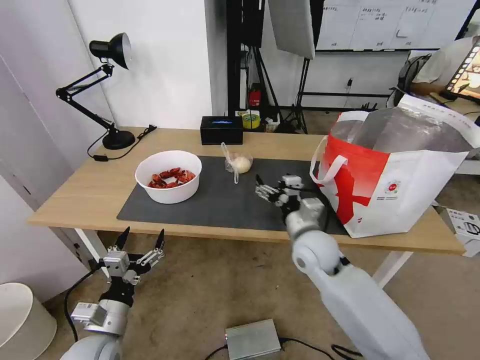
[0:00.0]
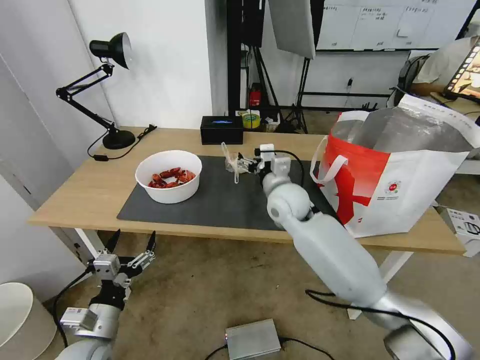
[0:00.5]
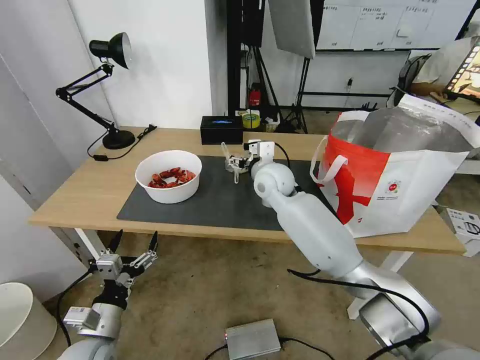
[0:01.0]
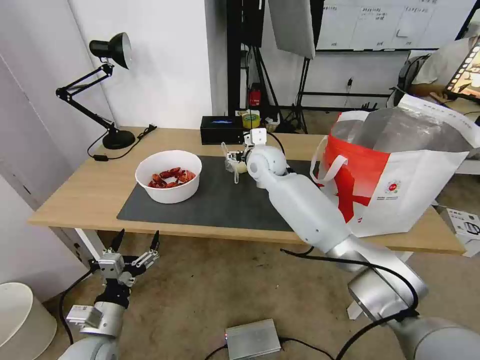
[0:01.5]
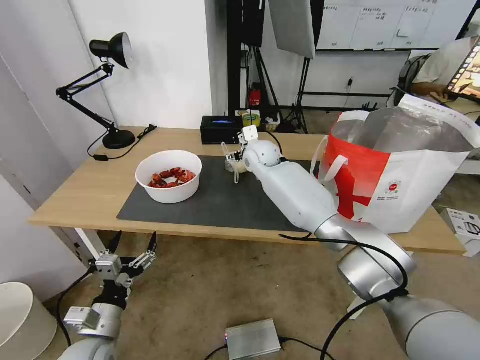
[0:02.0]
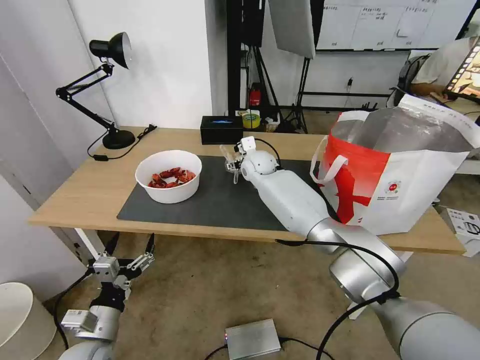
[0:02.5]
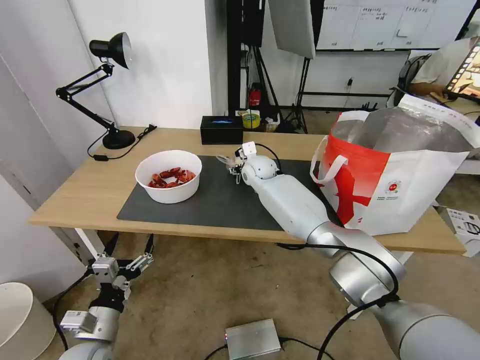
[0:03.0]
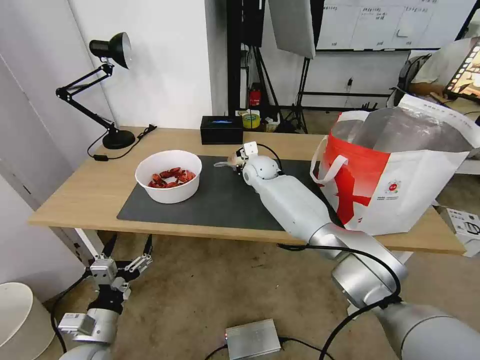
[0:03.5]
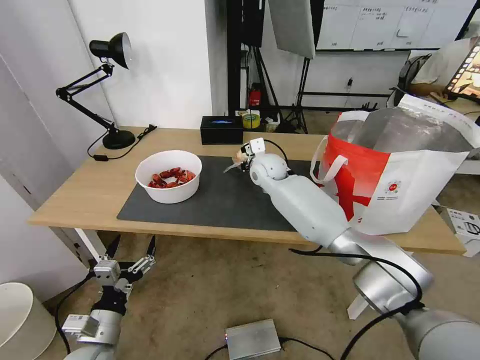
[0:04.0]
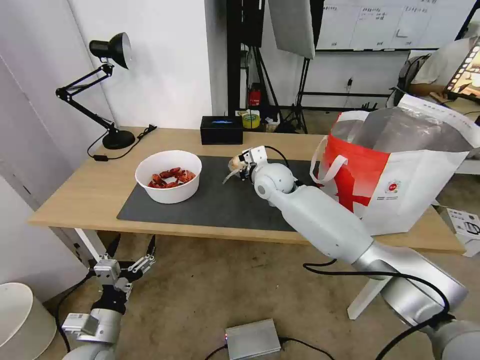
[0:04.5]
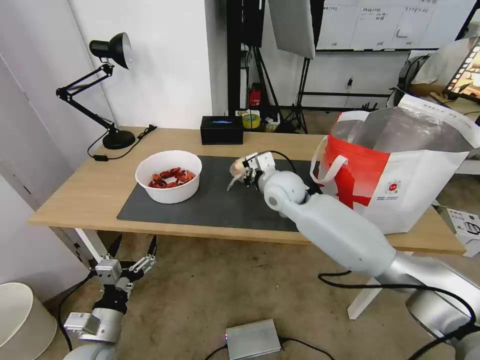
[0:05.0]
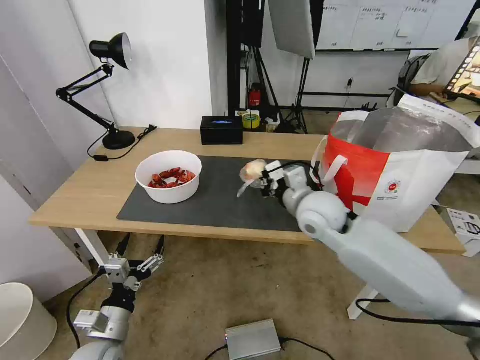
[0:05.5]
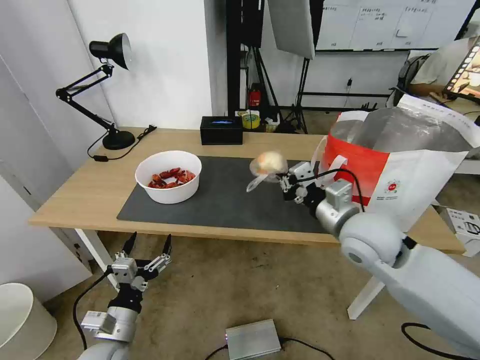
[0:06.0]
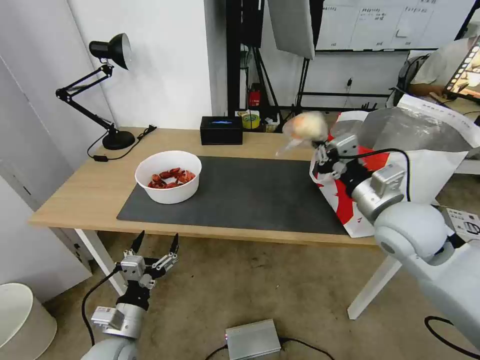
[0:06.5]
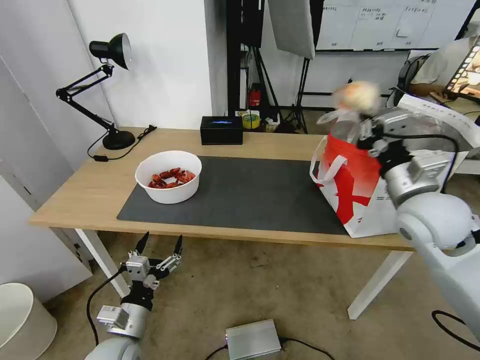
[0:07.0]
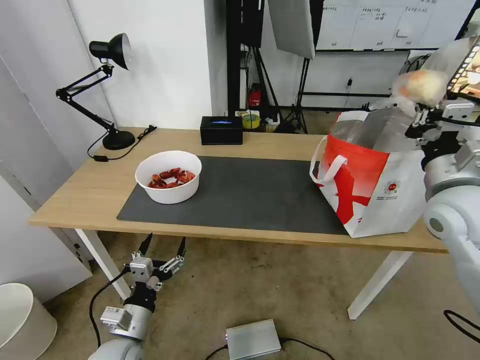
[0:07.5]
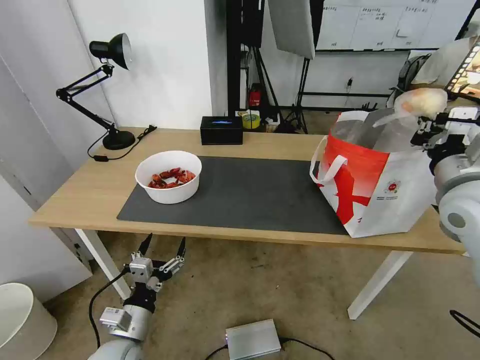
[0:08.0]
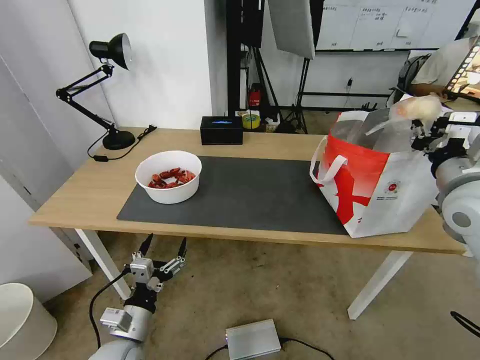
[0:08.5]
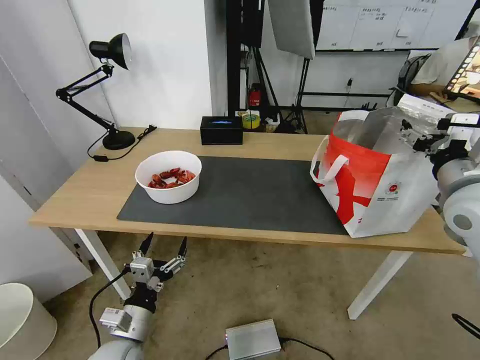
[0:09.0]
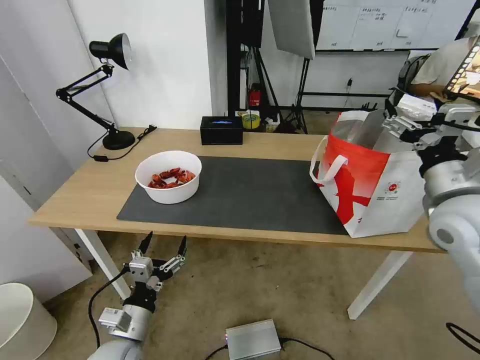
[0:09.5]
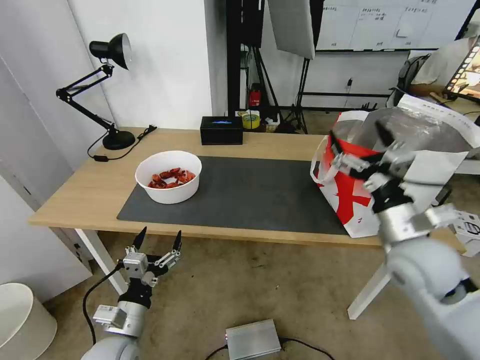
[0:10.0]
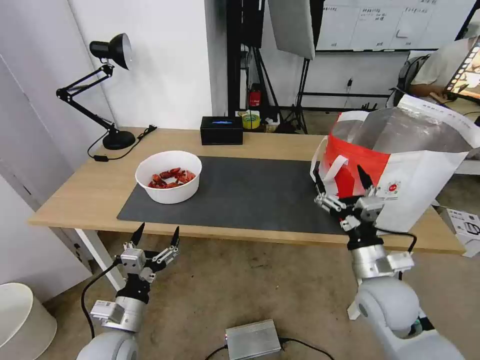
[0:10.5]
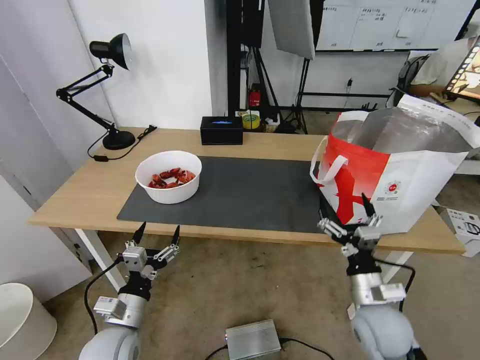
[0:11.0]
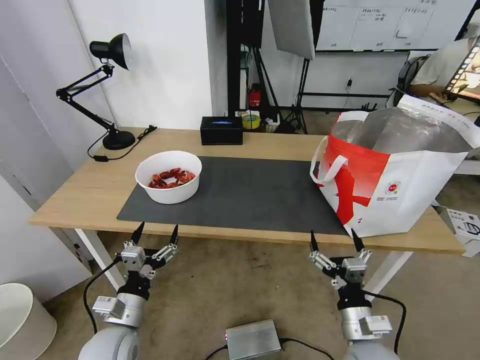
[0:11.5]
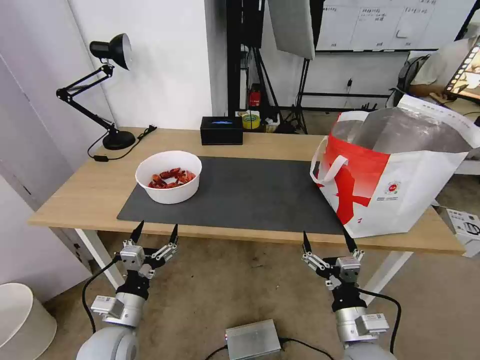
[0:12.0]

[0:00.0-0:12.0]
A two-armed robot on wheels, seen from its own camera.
Task of the whole recording: Pick up the trash from the table and place it into the takeout bag.
0:00.0 to 0:02.0: The right gripper travels forward and to the left by some 25 cm.
0:02.0 to 0:04.0: The right gripper closes up.
0:04.0 to 0:06.0: The right gripper moves backward and to the right, some 30 cm.
0:06.0 to 0:08.0: The right gripper shifts some 15 cm to the right and upward.
0:08.0 to 0:10.0: The right gripper heads downward and to the left, covering about 10 cm, and opens its fingers.
0:10.0 to 0:12.0: The right gripper travels downward, backward and to the left by some 25 cm.

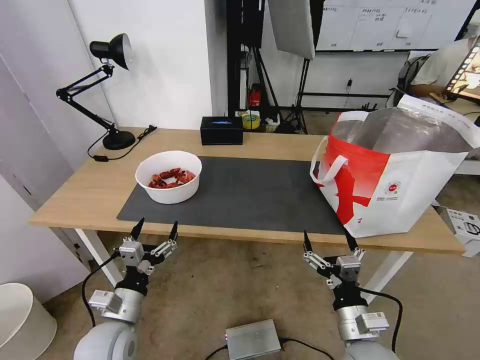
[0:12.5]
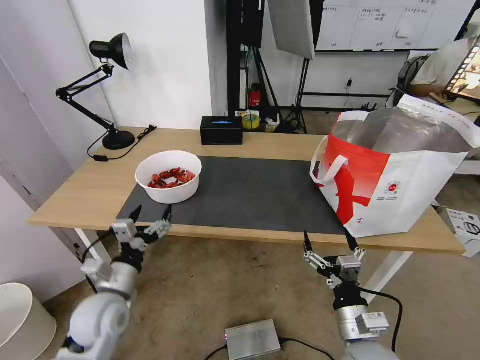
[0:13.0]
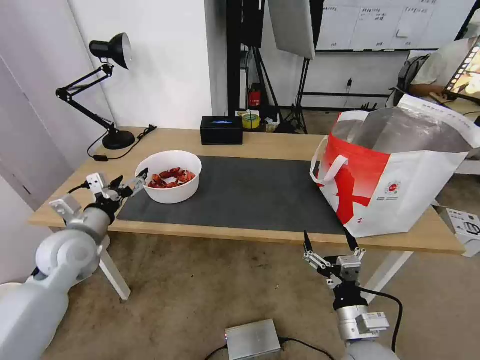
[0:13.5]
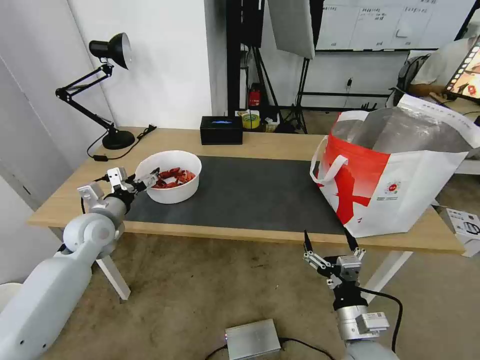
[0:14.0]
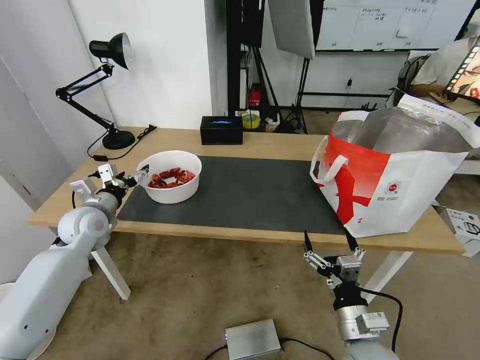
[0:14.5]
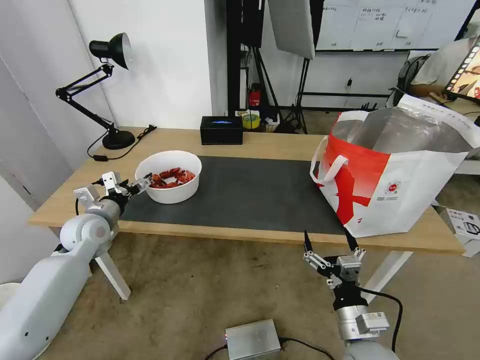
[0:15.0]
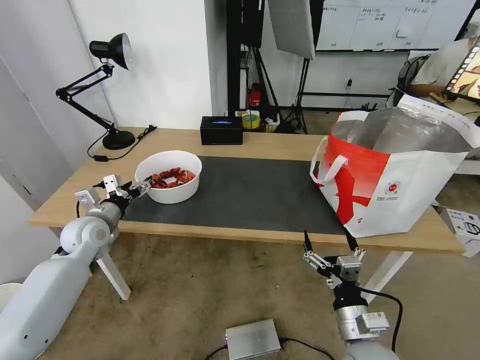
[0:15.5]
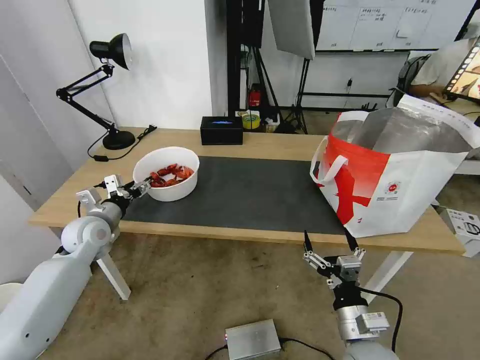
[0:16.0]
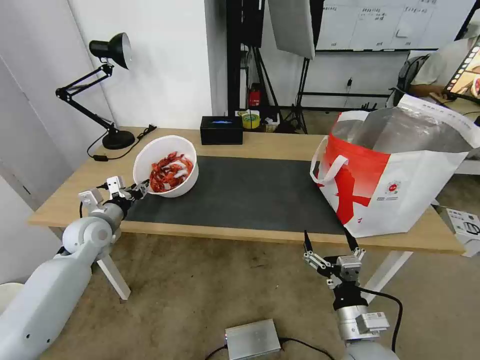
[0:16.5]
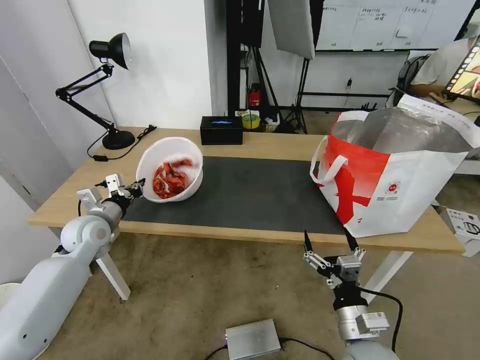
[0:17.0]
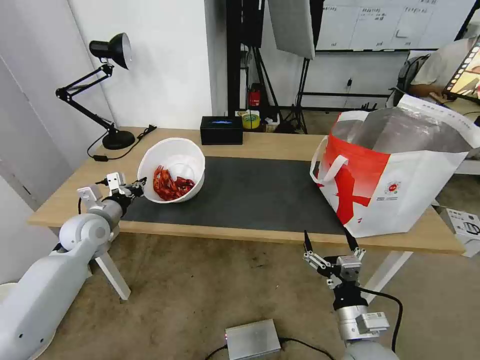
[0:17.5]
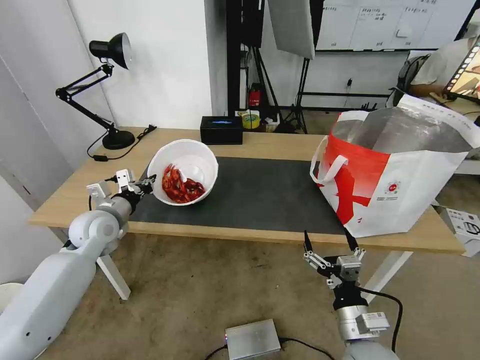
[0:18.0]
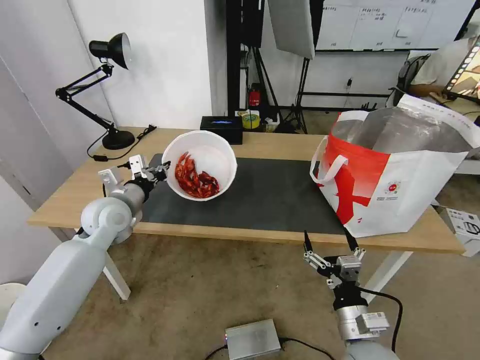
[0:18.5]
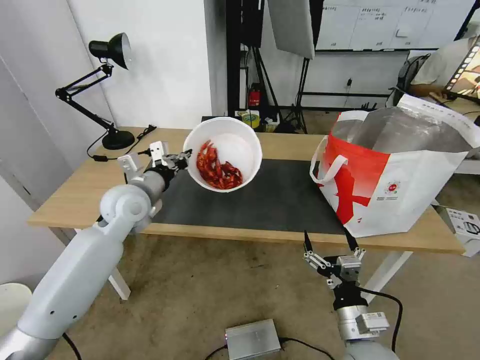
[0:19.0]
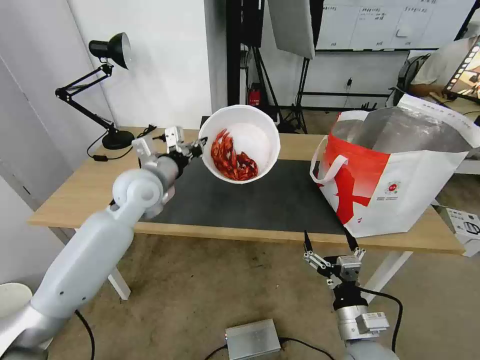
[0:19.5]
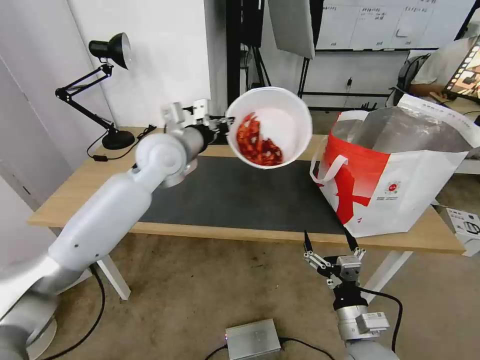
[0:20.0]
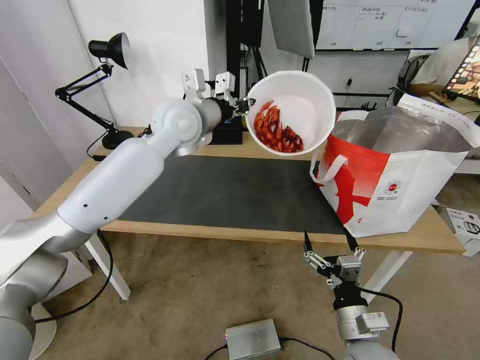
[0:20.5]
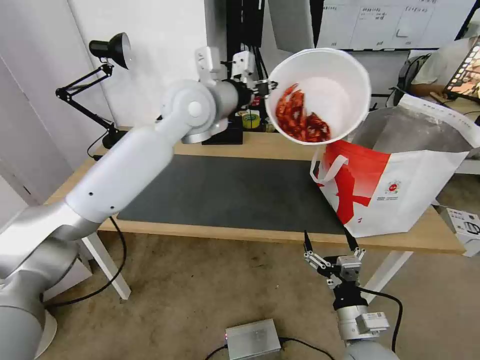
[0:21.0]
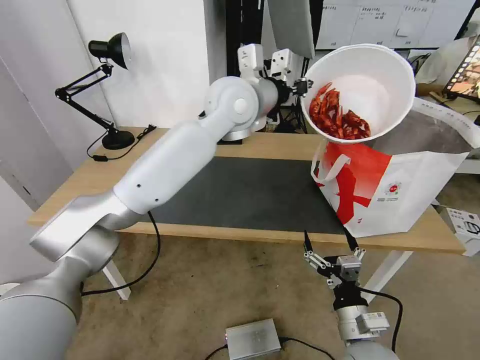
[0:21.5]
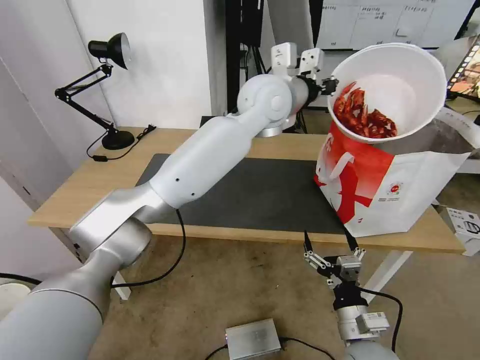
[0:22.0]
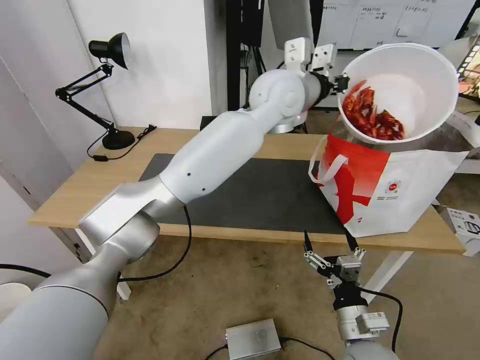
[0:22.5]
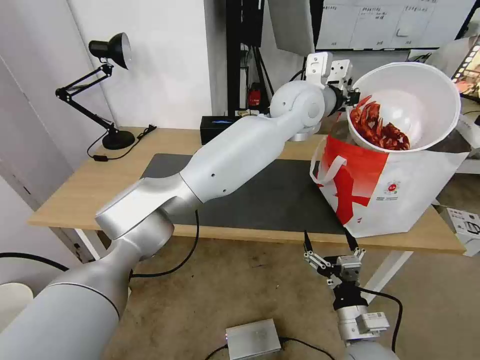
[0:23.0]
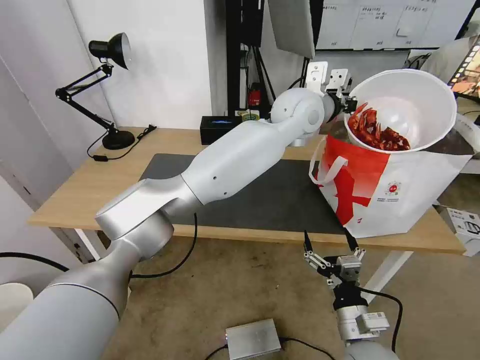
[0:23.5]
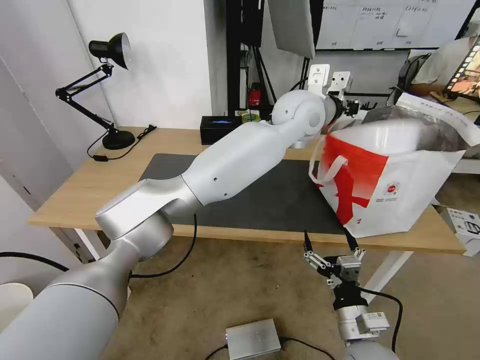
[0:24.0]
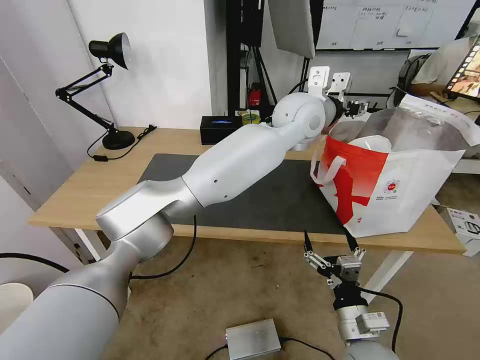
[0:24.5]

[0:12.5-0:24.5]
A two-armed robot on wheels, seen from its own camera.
Task of the whole recording: Pick up the trash from the table and place it into the takeout bag.
0:12.5 to 0:14.5: The left gripper travels forward, to the left and upward by some 25 cm.
0:14.5 to 0:16.5: The left gripper closes up.
0:16.5 to 0:18.5: The left gripper goes approximately 10 cm to the right and upward.
0:18.5 to 0:20.5: The left gripper travels upward, to the right and forward by roughly 25 cm.
0:20.5 to 0:22.5: The left gripper heads to the right, covering roughly 20 cm.
0:22.5 to 0:24.5: The left gripper shifts by approximately 5 cm, and opens up.

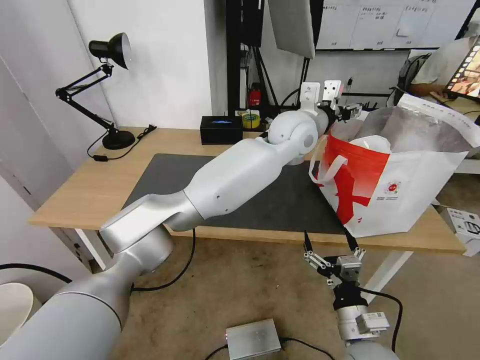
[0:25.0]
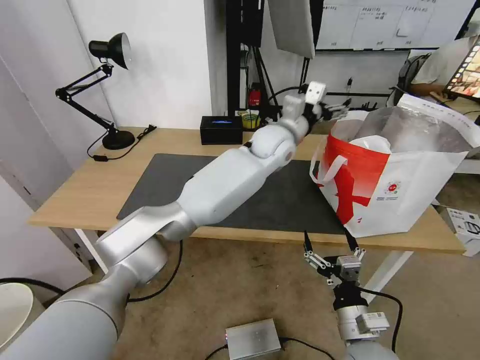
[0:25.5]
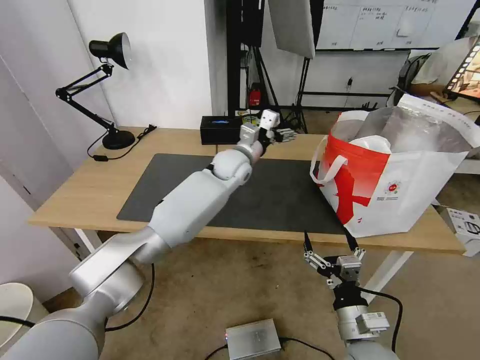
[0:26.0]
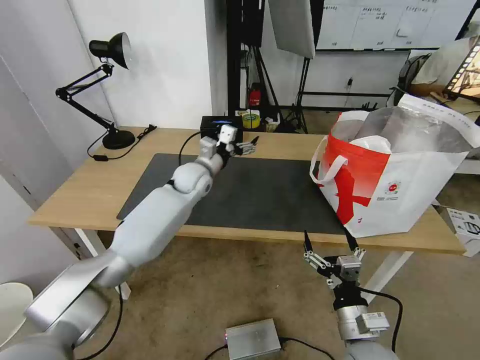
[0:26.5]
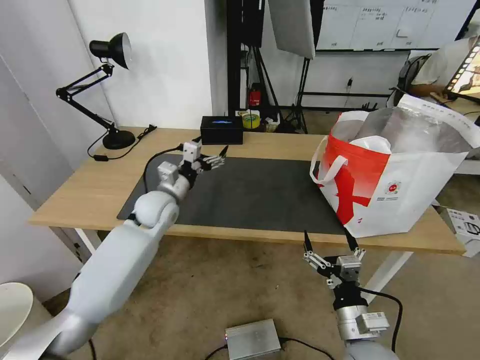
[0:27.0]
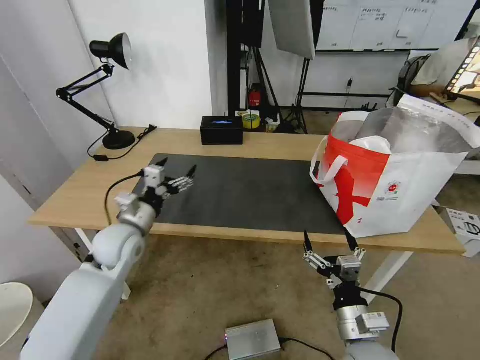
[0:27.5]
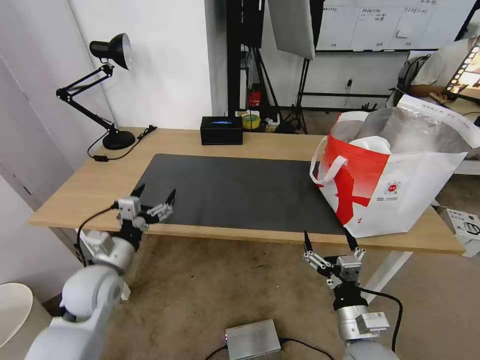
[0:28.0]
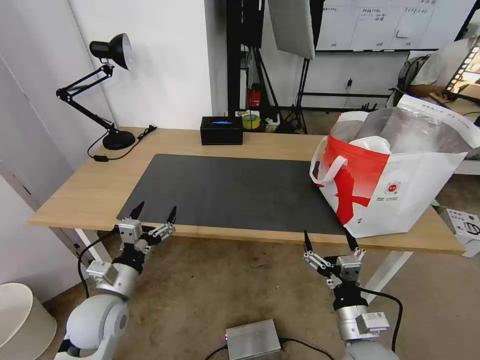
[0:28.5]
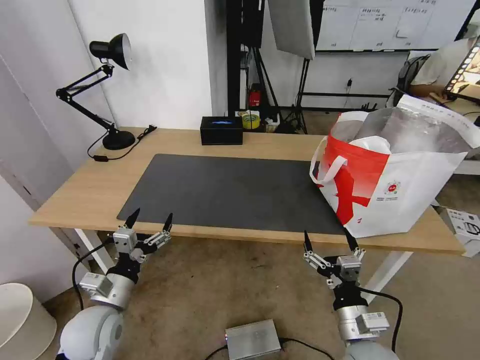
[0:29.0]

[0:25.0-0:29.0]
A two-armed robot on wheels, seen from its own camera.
Task of the whole recording: Pick up the trash from the table and place it into the takeout bag.
0:25.0 to 0:27.0: The left gripper is displaced to the left and downward by approximately 35 cm.
0:27.0 to 0:29.0: The left gripper shifts roughly 25 cm backward.
